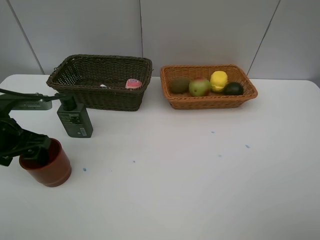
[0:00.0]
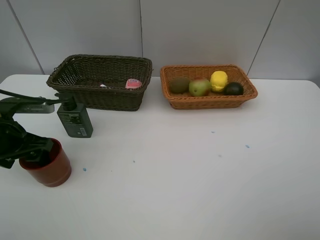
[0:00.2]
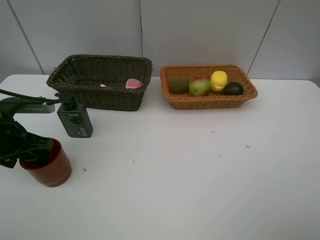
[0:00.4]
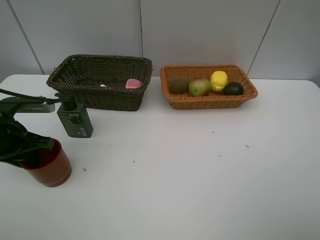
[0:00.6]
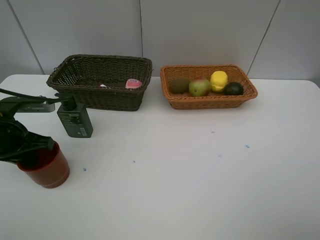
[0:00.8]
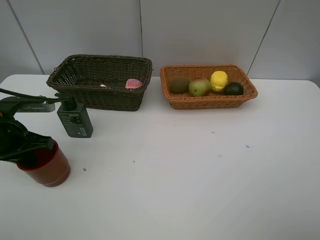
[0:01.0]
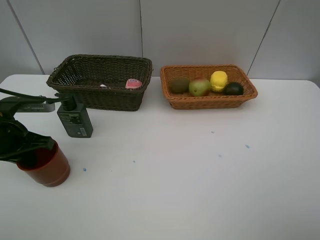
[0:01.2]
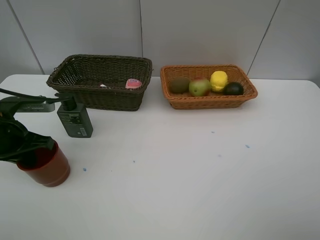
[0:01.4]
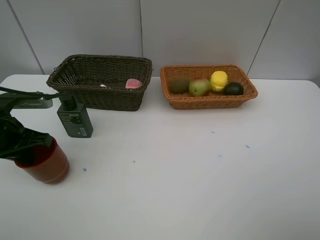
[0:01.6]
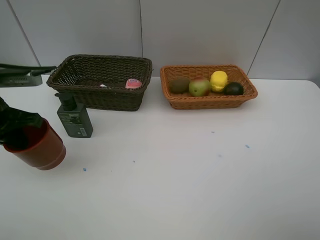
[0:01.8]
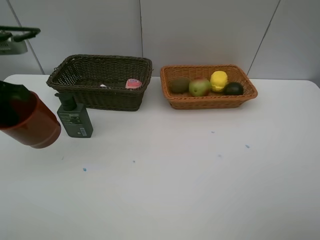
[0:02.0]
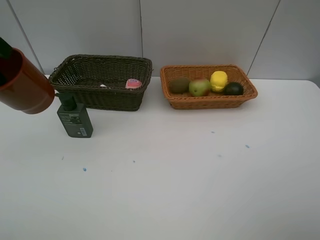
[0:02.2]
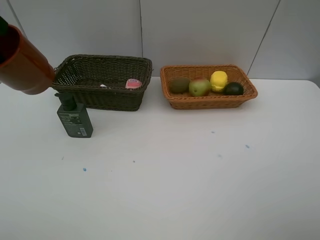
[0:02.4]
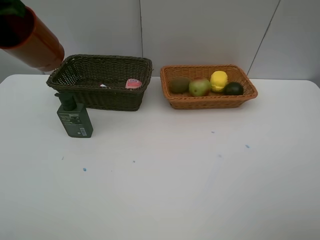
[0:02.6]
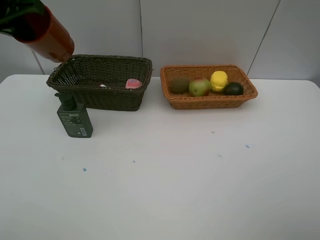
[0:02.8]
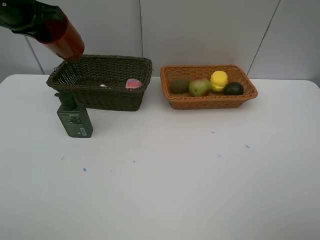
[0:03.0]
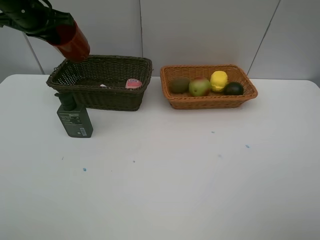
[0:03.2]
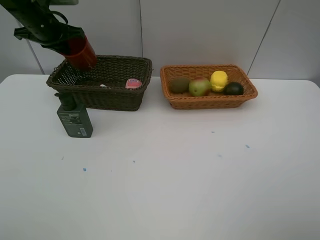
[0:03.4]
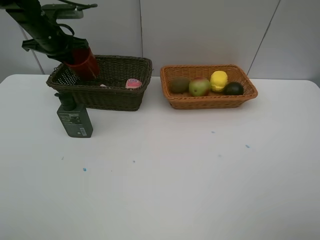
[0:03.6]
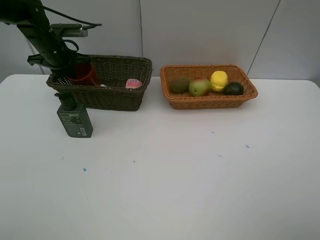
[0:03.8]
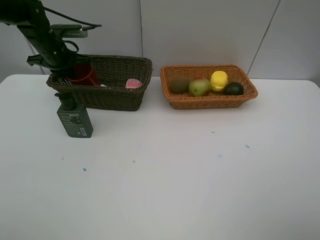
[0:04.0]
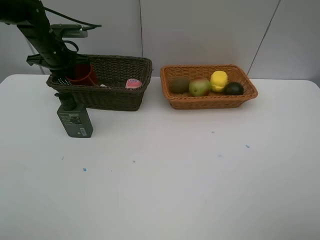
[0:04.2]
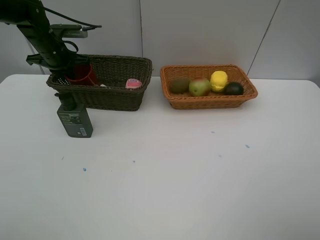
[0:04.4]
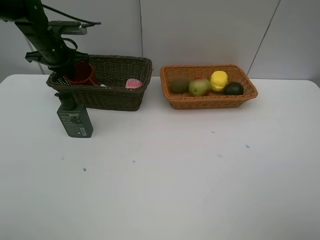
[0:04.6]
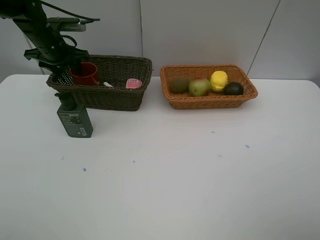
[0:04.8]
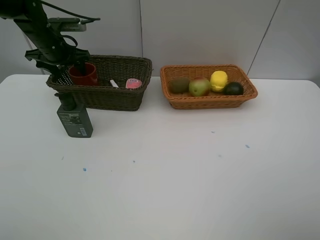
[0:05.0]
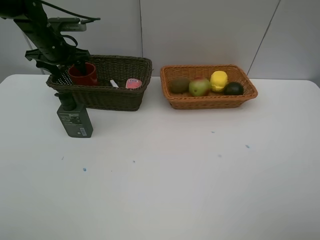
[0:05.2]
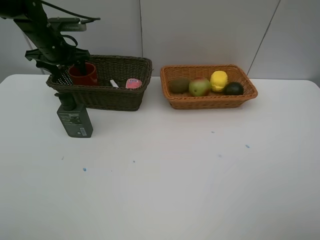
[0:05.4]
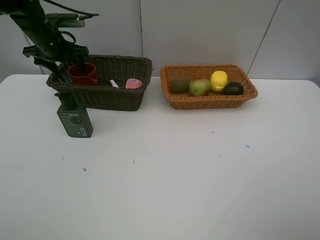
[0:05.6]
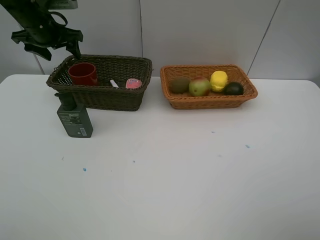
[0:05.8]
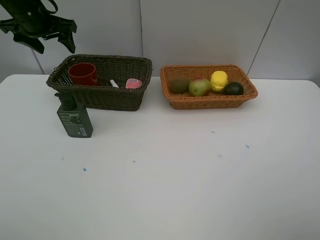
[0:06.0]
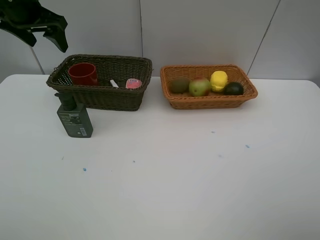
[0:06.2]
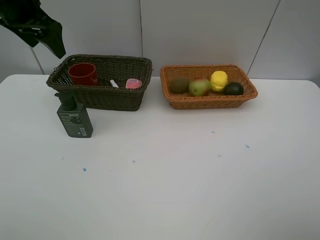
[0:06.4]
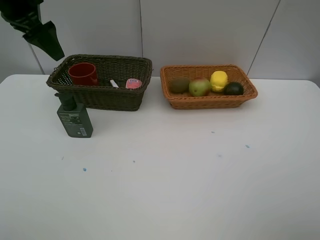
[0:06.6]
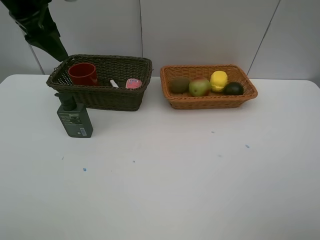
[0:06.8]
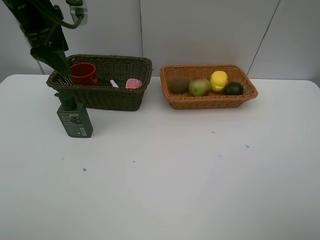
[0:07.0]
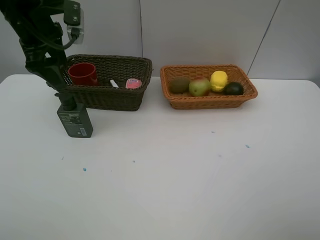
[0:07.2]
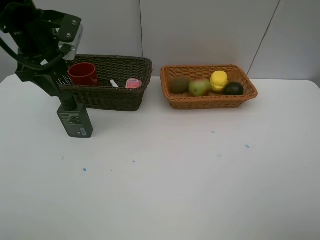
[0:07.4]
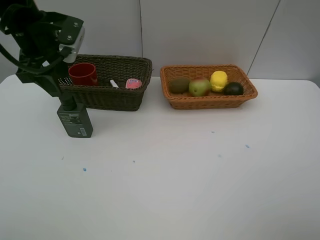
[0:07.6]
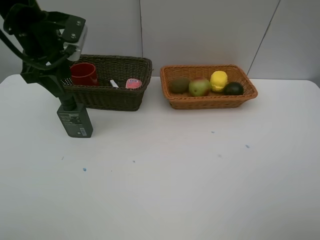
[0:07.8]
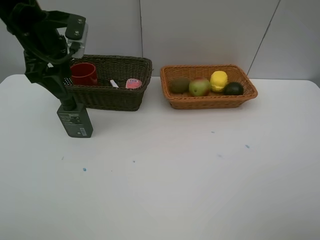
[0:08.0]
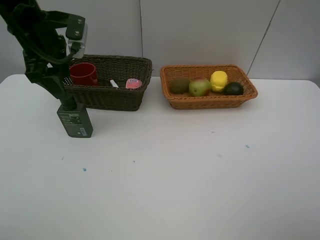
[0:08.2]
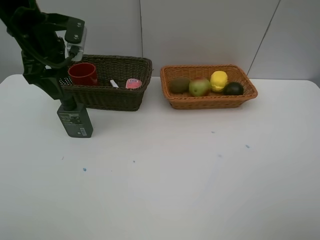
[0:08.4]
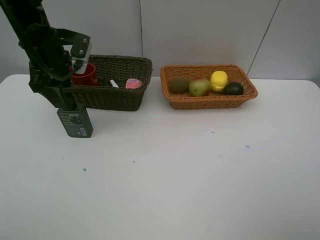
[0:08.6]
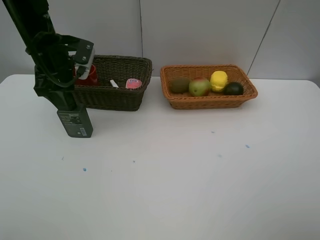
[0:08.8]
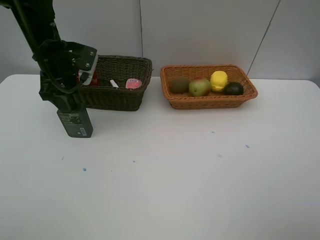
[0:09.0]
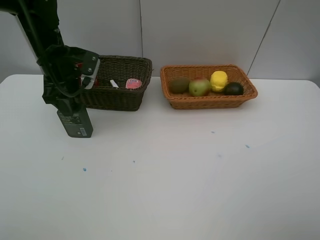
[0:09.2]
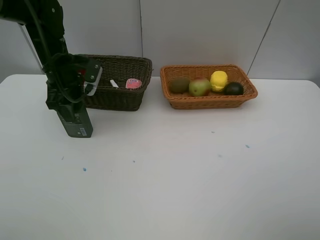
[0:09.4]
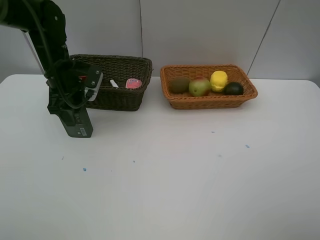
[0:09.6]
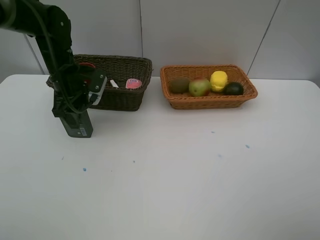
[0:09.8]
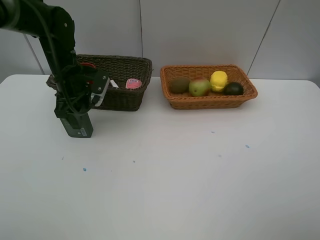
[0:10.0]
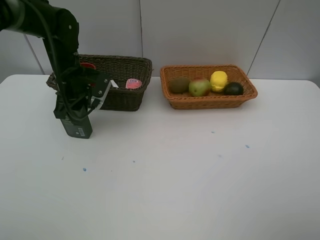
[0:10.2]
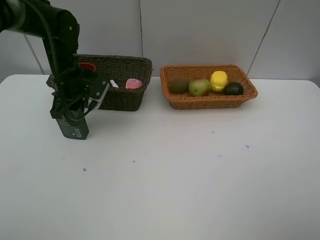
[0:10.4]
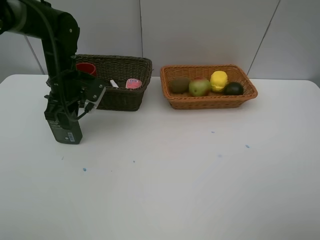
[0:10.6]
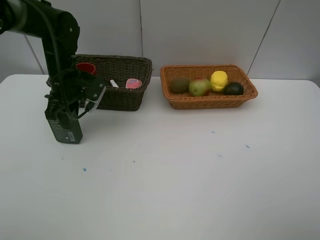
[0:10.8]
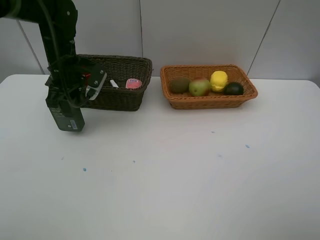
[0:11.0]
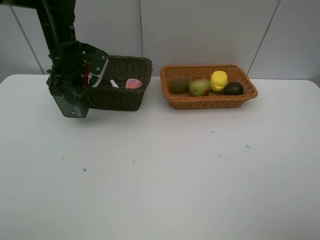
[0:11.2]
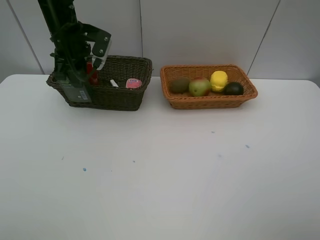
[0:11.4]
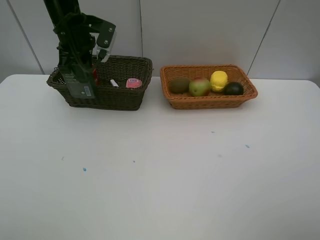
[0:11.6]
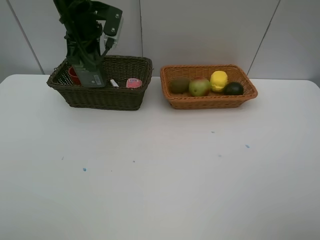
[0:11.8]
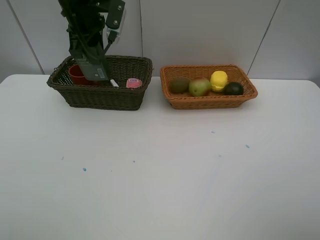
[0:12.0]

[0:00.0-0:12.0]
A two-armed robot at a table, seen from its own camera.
Task of the whole recording: Place multiple objects separately in different baskets.
Step, 0:01.8 to 0:05.8: Place the dark brown cup in the dark basket with left gripper.
Step, 0:06.0 to 0:11.2: Pick up the hard facial cleanser with left gripper.
0:00.0 to 0:01.6: The left gripper closes its fingers.
0:01.6 to 0:03.0: The left gripper goes roughly 20 cm forward and upward.
0:03.0 to 0:04.4: The left gripper moves downward and forward, about 15 cm.
0:04.4 to 0:06.0: The left gripper shifts about 10 cm upward, and opens up.
0:06.0 to 0:07.6: The left gripper shifts about 10 cm backward and to the right.
0:07.6 to 0:09.0: The left gripper moves downward, about 5 cm.
0:09.0 to 0:10.4: The left gripper goes roughly 5 cm downward, and closes its fingers.
0:10.4 to 0:12.0: The left gripper goes roughly 15 cm upward.

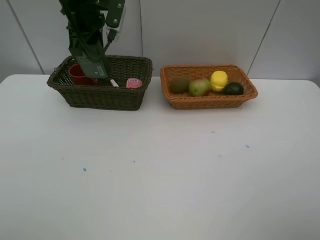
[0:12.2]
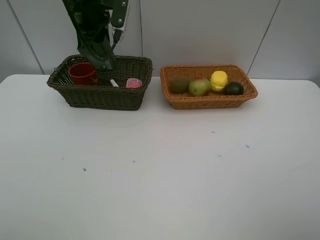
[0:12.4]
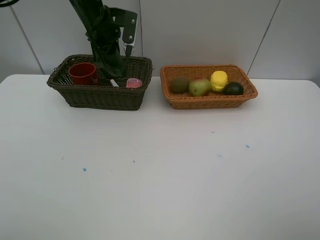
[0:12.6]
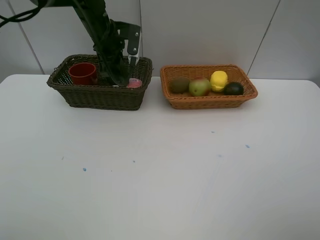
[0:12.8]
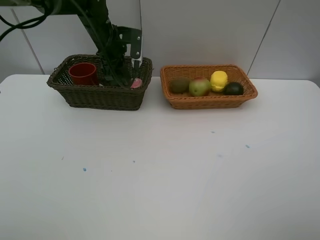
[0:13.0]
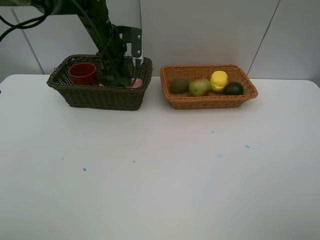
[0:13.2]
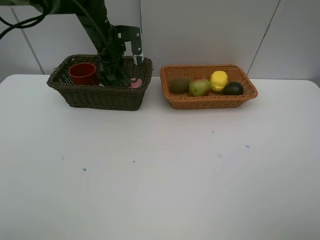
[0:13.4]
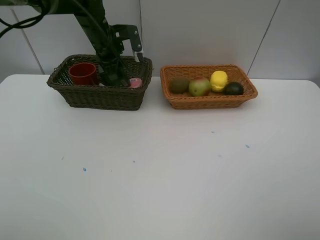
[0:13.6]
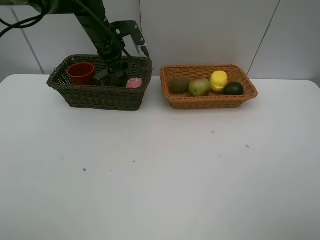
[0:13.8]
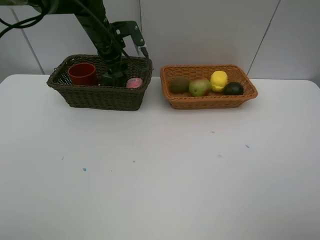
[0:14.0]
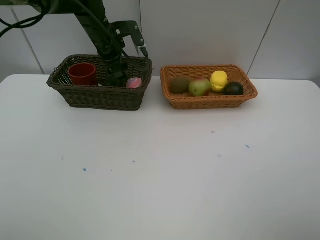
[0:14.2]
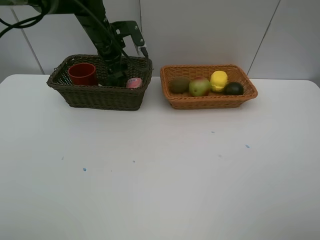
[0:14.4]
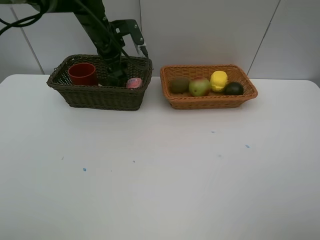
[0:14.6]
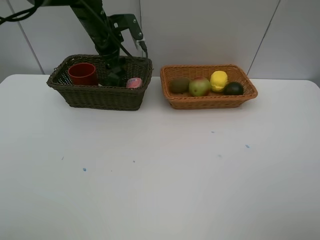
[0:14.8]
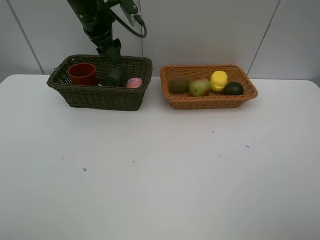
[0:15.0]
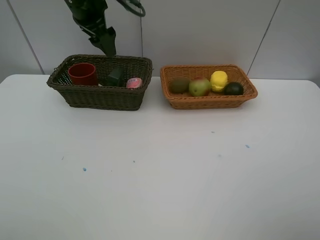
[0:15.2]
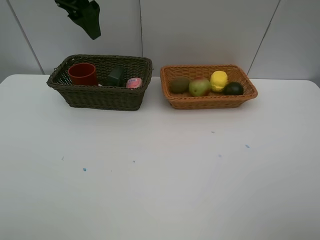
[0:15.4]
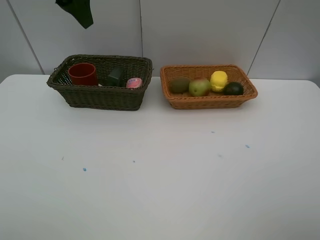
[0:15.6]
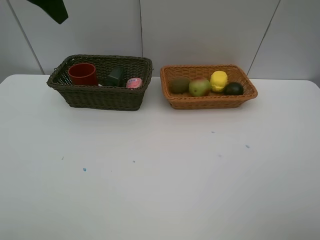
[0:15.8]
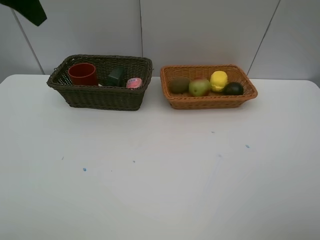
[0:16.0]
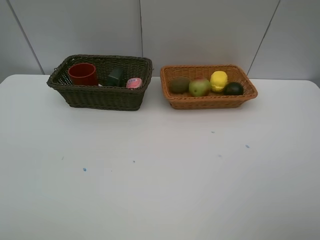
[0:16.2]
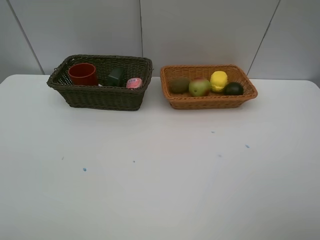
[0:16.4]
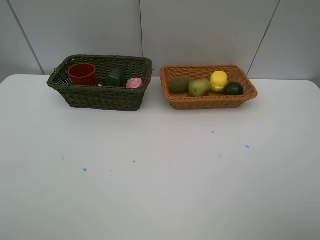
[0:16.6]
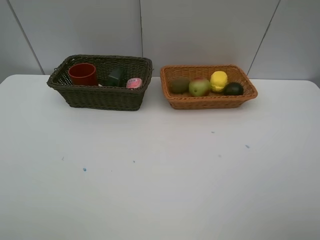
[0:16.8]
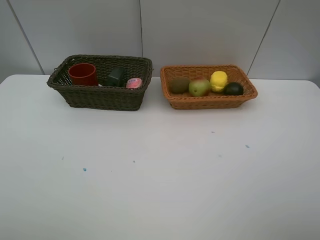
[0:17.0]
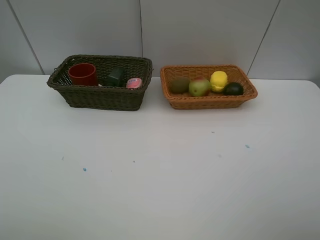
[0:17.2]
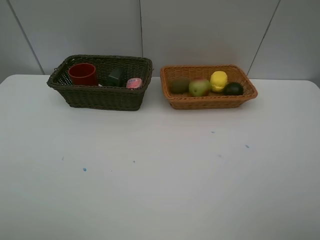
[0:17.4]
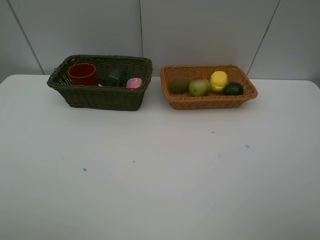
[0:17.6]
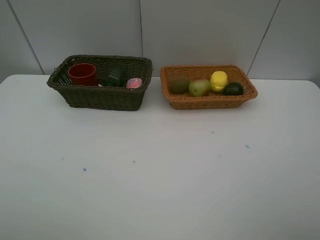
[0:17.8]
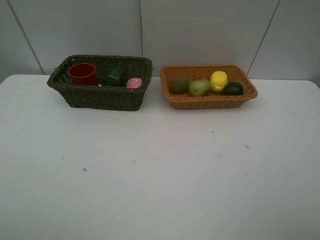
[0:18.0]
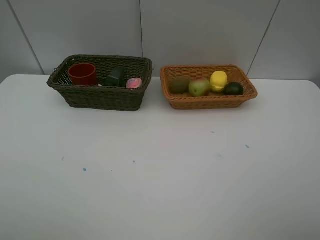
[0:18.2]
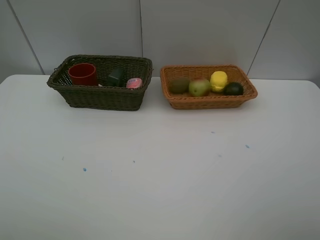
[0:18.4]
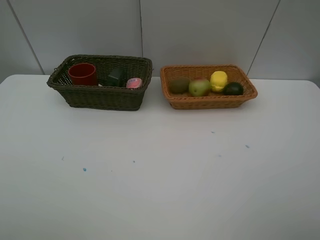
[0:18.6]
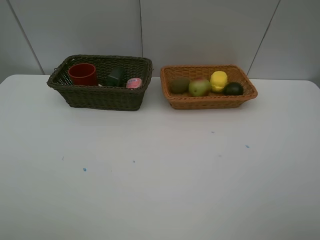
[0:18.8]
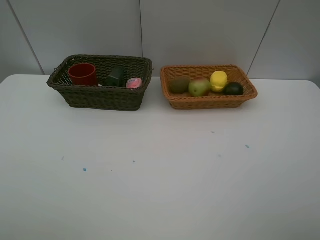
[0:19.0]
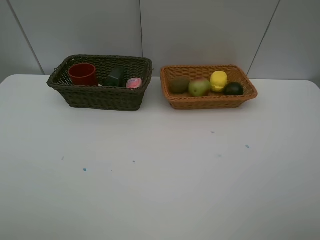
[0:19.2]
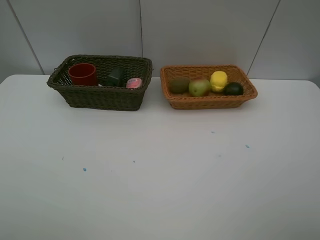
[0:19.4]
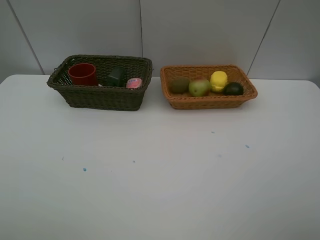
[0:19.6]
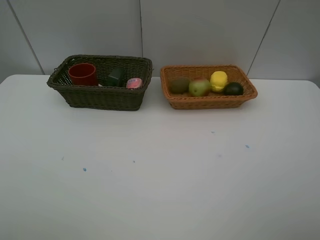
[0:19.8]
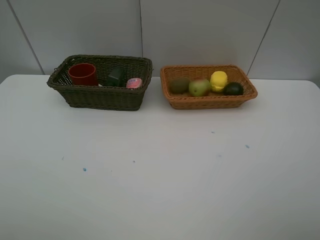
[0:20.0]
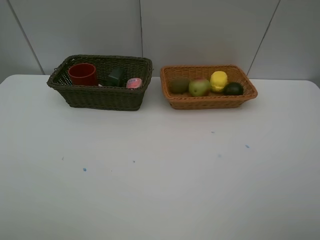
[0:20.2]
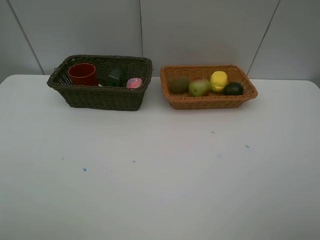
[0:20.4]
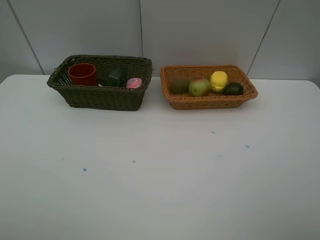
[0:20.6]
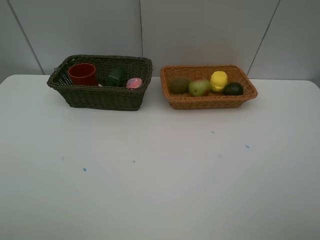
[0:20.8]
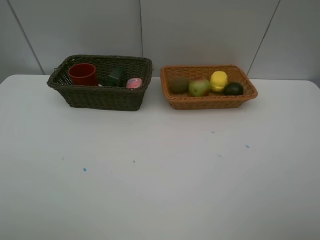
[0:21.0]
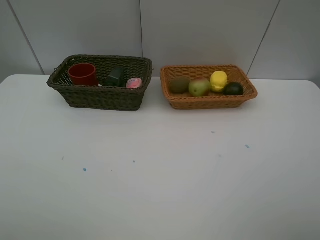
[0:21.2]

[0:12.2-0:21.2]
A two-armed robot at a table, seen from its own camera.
Task of the whole recording: Place multiple objects separately in different baskets.
Step, 0:12.2 to 0:14.8: Place the hard facial cleanser in the dark basket with left gripper.
0:12.2 to 0:13.8: The left gripper travels downward and forward by approximately 10 cm, and opens.
0:13.8 to 0:15.2: The left gripper shifts about 10 cm upward and backward.
0:15.2 to 0:16.6: The left gripper shifts approximately 35 cm backward and to the left.
0:16.6 to 0:18.2: The left gripper shifts approximately 15 cm downward and backward.
0:18.2 to 0:21.2: The two grippers keep their place.
